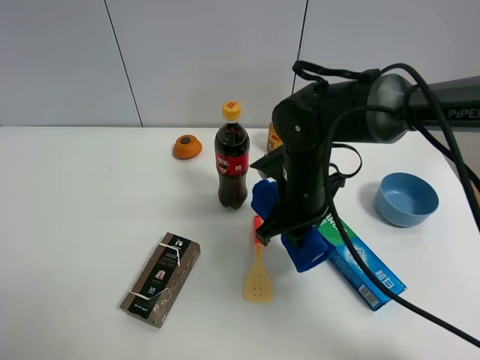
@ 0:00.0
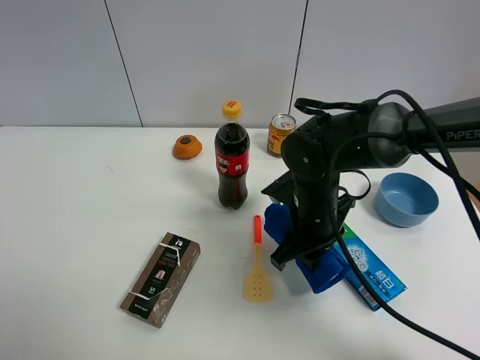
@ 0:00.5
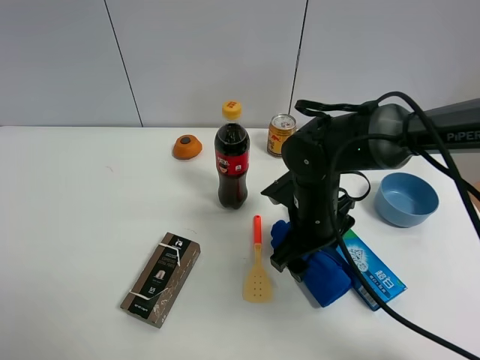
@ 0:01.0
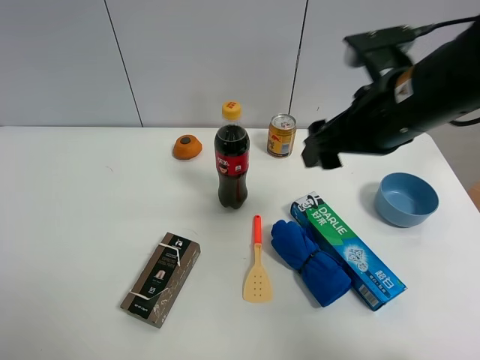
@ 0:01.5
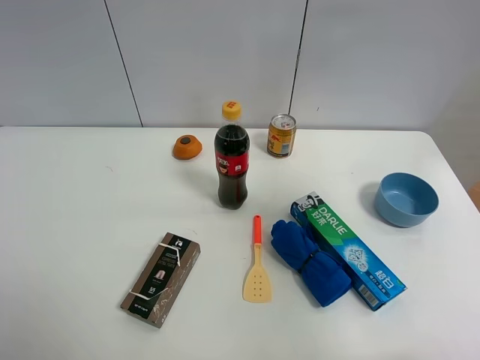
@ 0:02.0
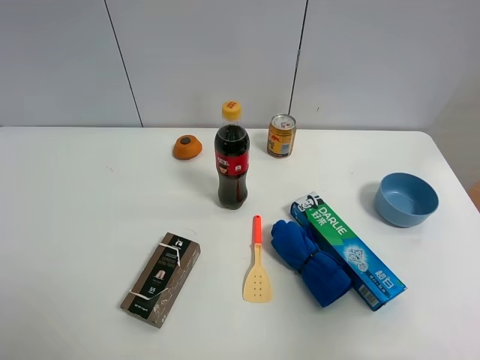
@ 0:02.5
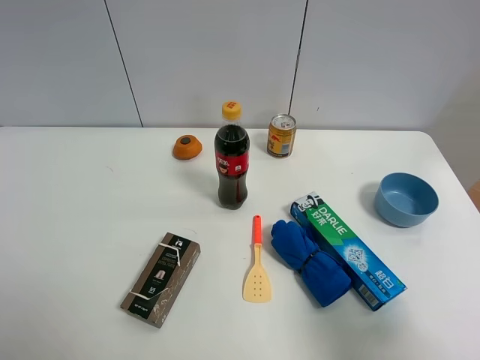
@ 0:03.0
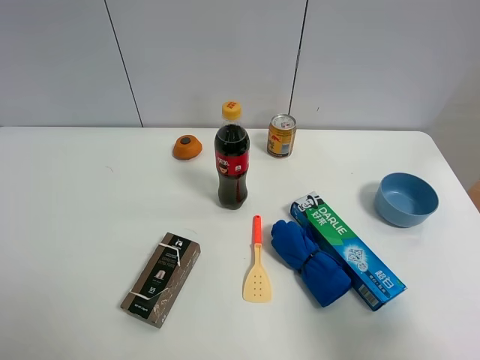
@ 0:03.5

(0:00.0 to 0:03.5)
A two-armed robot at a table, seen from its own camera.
Task of the whole recording: the gripper move the object.
0:00.0 - 0:02.0: The right gripper goes some 35 cm upward, to the right and backward, and opens.
0:02.0 - 0:03.5: The right gripper is displaced downward and backward by roughly 20 cm.

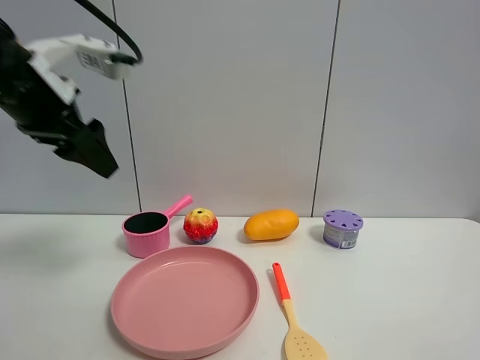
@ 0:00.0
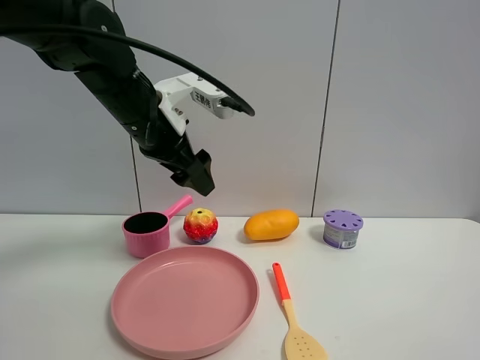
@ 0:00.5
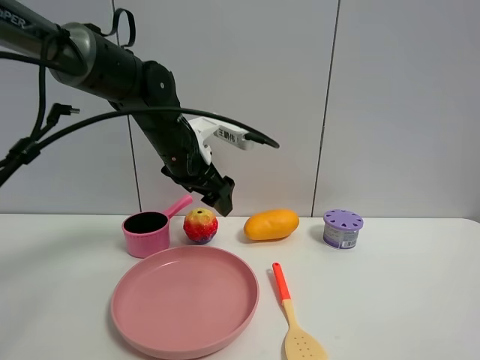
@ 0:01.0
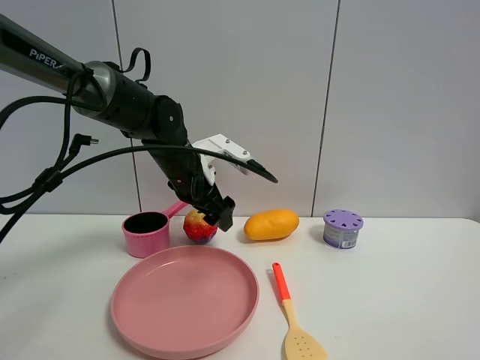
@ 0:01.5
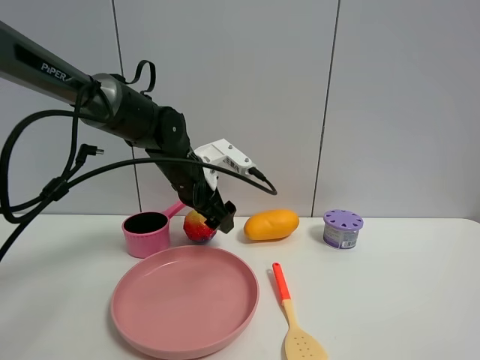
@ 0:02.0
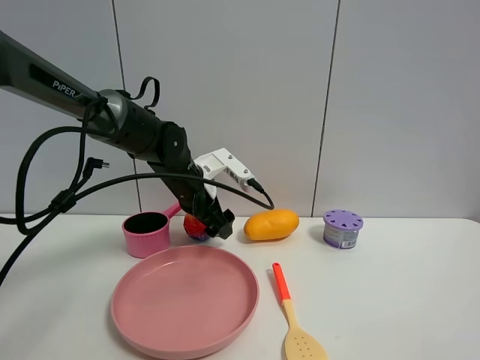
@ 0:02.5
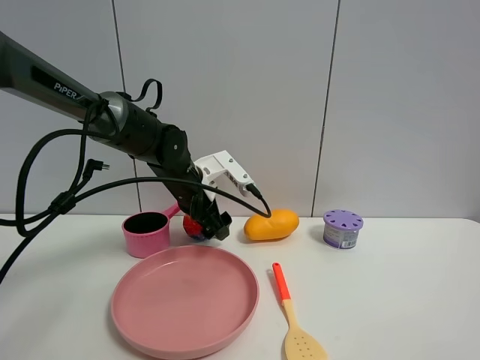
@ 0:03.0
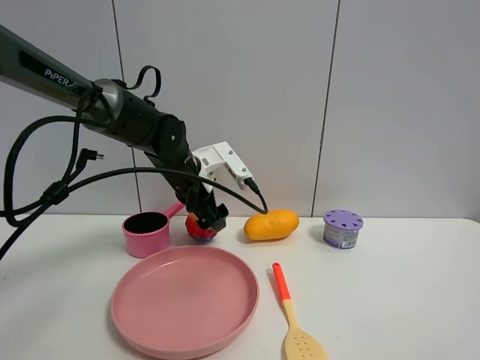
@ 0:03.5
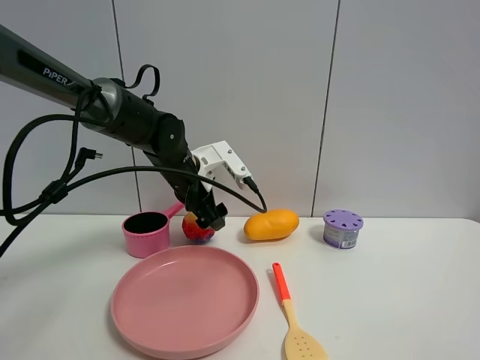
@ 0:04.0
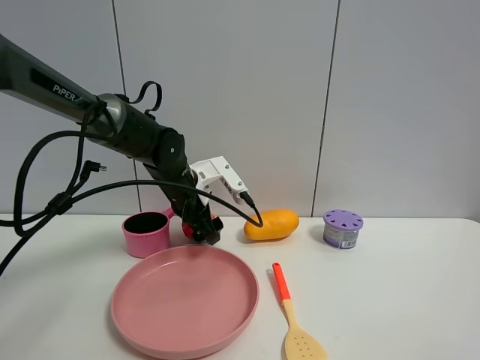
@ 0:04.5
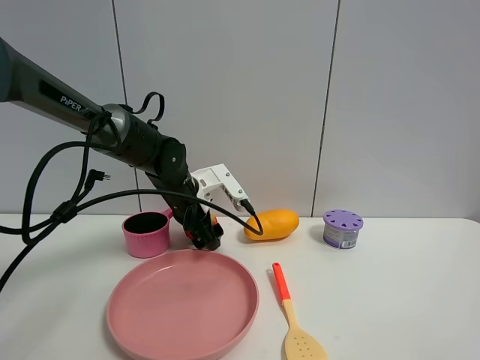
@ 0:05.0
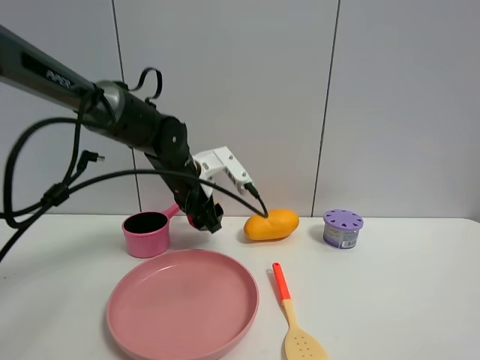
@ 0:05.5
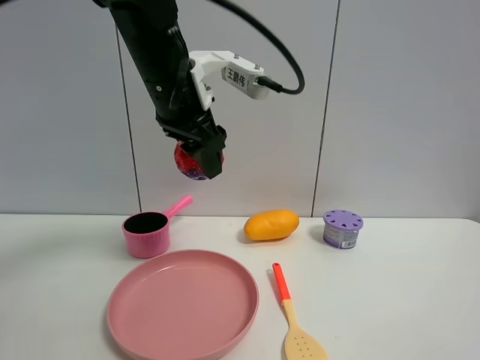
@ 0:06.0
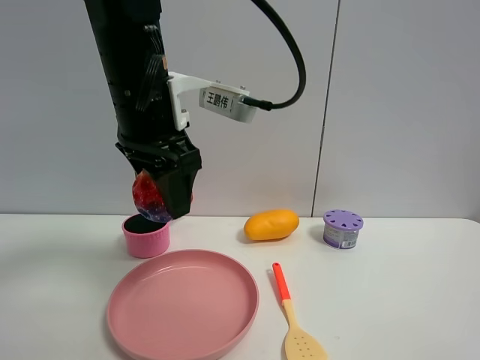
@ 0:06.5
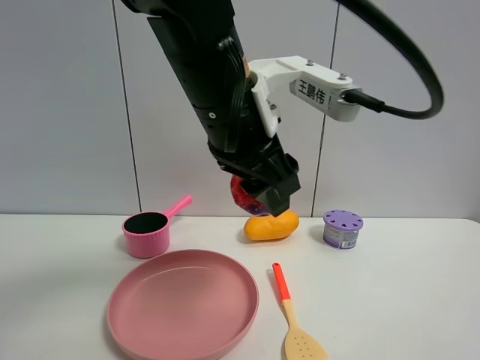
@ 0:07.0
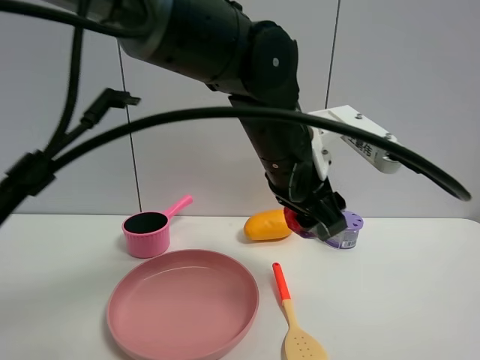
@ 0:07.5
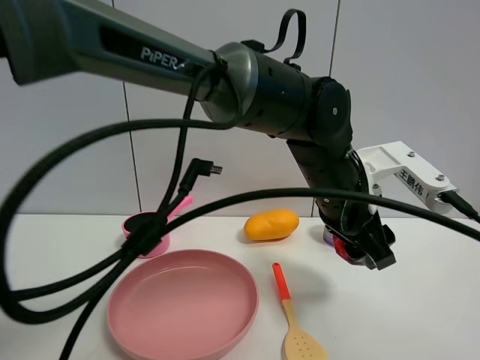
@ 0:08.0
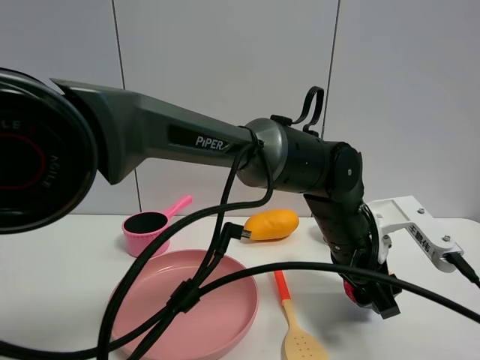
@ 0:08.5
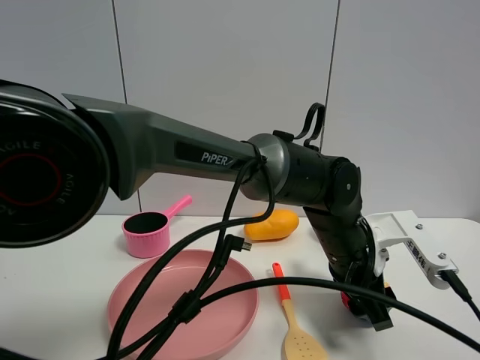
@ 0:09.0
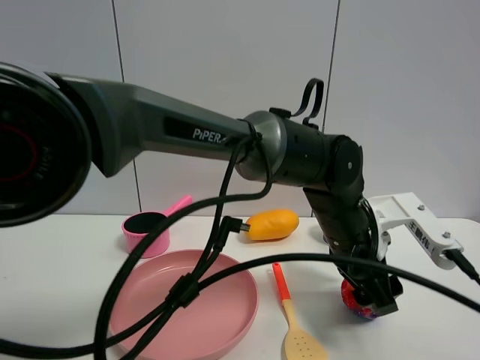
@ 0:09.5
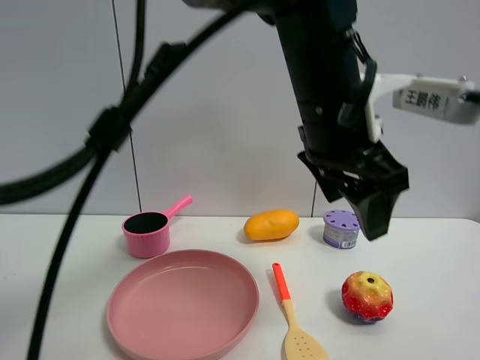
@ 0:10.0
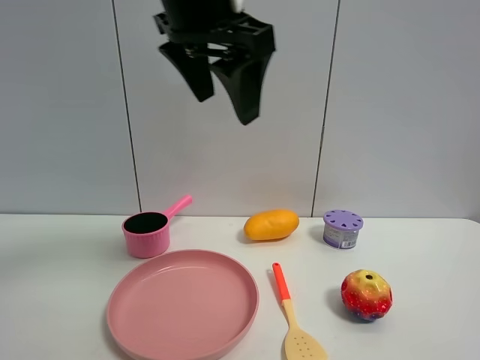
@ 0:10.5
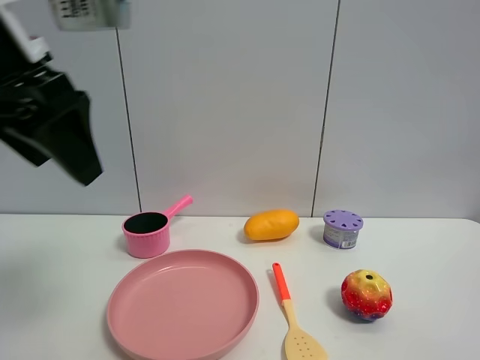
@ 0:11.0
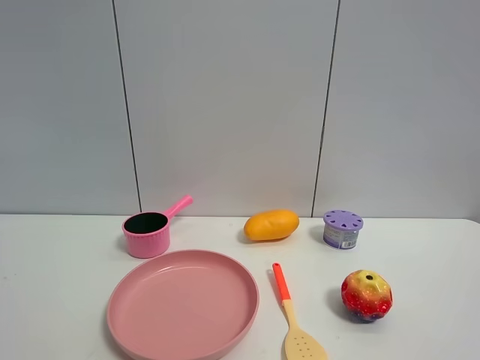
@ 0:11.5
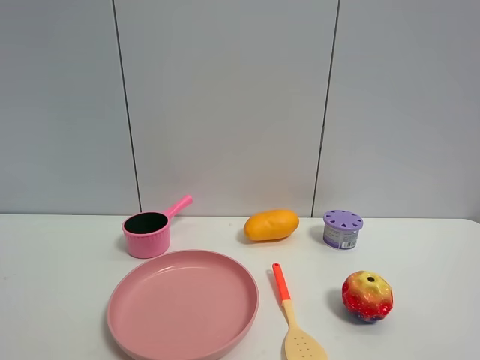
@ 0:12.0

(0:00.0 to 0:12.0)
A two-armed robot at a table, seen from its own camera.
Task of the whole recording: the gripper move the object.
Step, 0:00.0 - 0:05.0: Grasp the colorful ball with the left gripper.
Step, 0:05.5 - 0:09.5: Place the colorful ball on the table with the left gripper.
0:00.0 - 0:02.0: The left gripper shifts roughly 25 cm downward, to the right and forward.
0:02.0 - 0:04.0: The grippers stay close to where they were, moving slightly.
0:04.0 - 0:06.0: The left gripper travels upward and backward by approximately 20 cm, and closes its fingers.
0:06.0 - 0:08.0: The left gripper moves to the right and downward, about 20 cm.
0:08.0 - 0:10.0: The left gripper heads upward, covering roughly 10 cm, and opens its fingers.
0:10.0 - 0:12.0: The left gripper moves to the left and backward, about 50 cm.

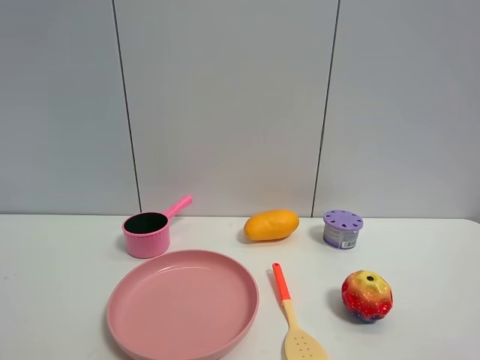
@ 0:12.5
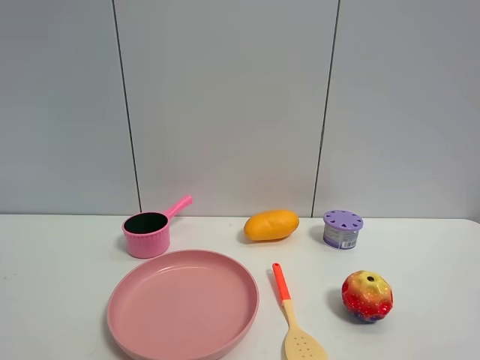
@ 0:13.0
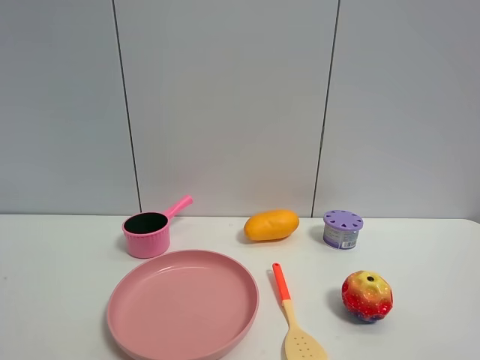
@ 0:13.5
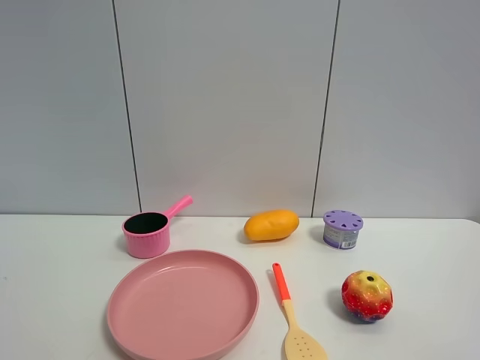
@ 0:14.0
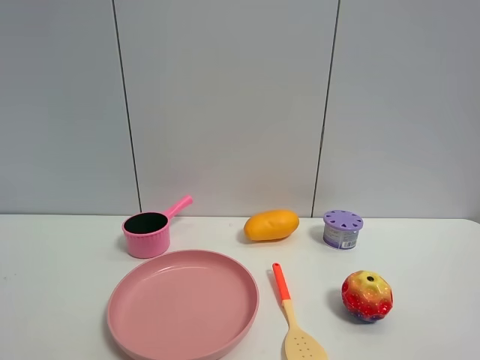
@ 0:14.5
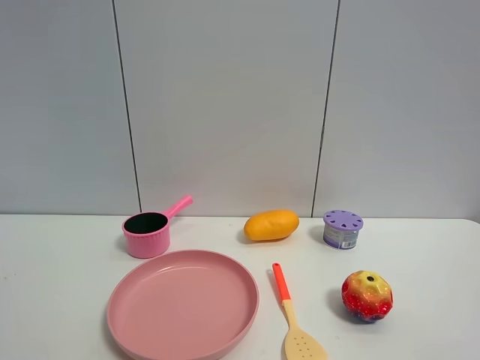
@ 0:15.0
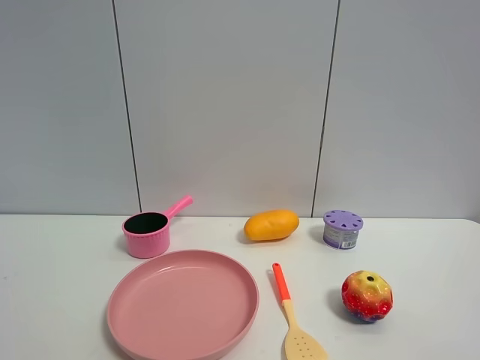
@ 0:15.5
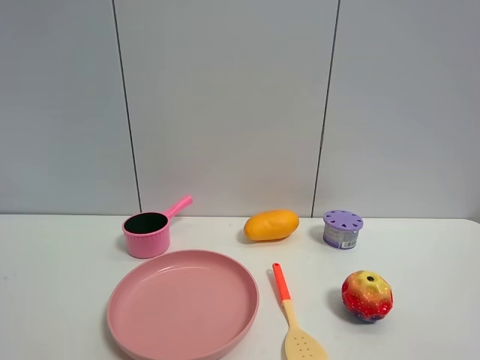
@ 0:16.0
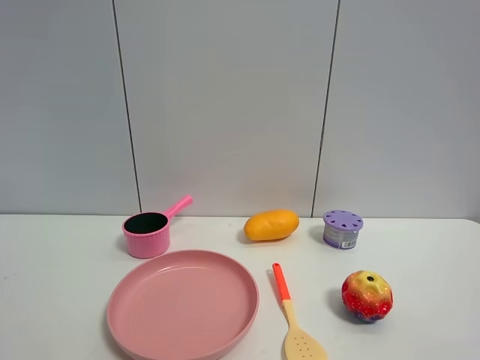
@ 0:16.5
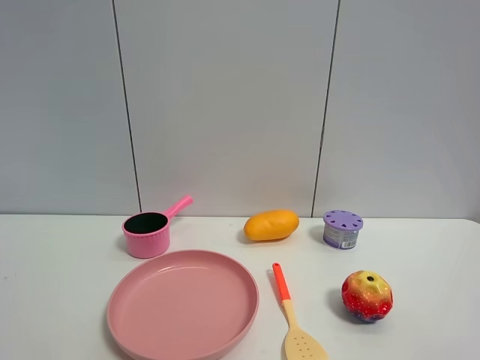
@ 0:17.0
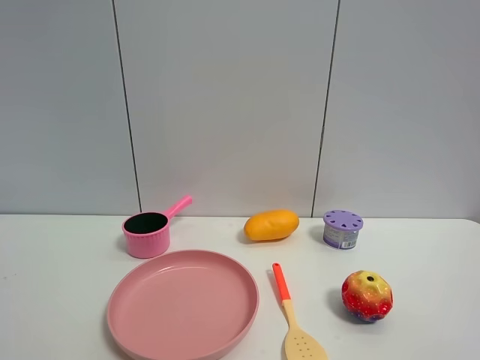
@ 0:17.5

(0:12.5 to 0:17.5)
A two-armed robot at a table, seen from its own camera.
Task of the whole recording: the gripper move the object.
0:15.0 - 0:17.5: Neither gripper changes place.

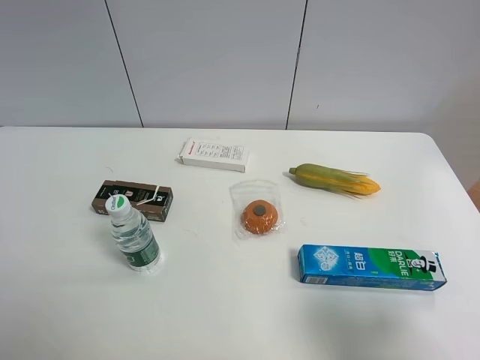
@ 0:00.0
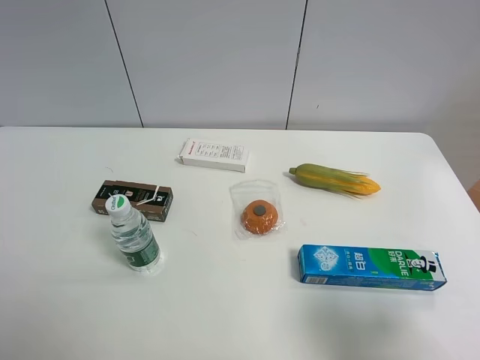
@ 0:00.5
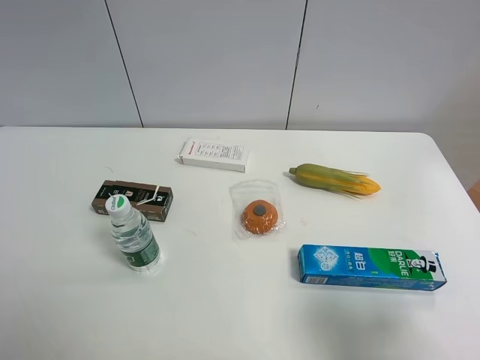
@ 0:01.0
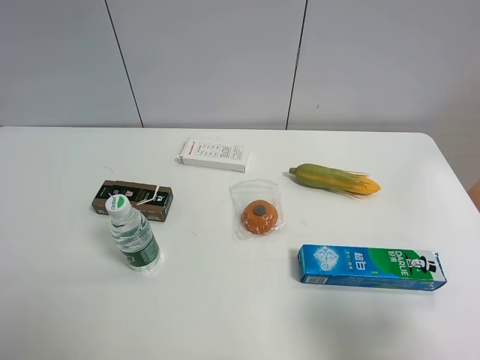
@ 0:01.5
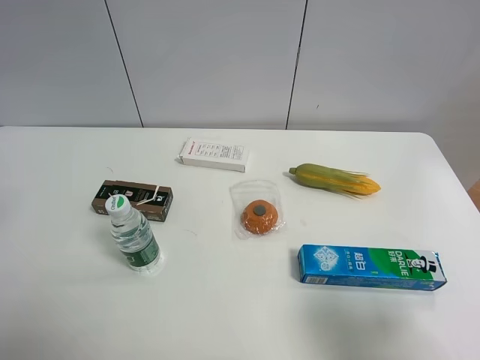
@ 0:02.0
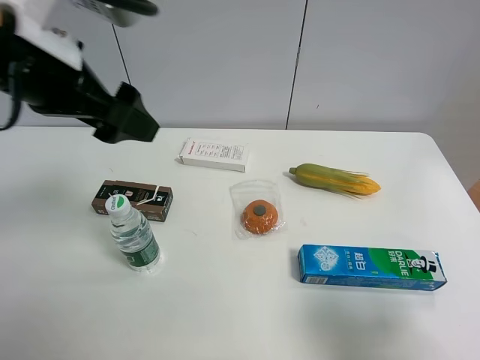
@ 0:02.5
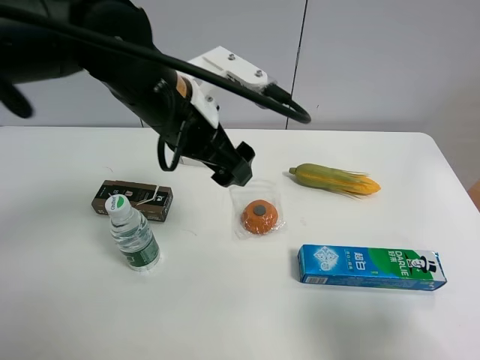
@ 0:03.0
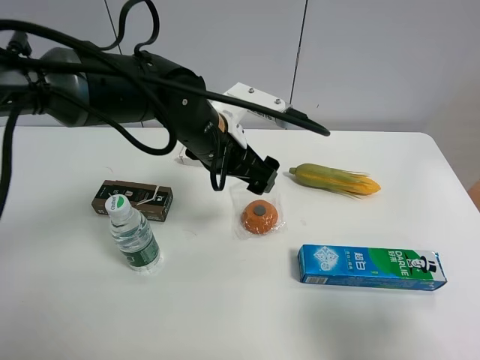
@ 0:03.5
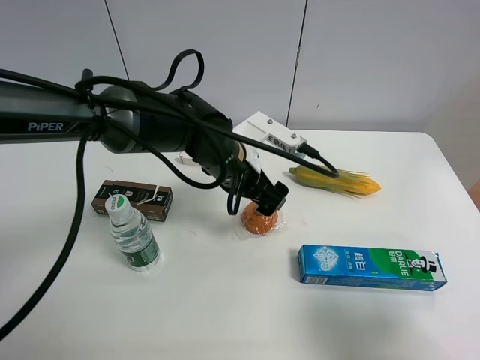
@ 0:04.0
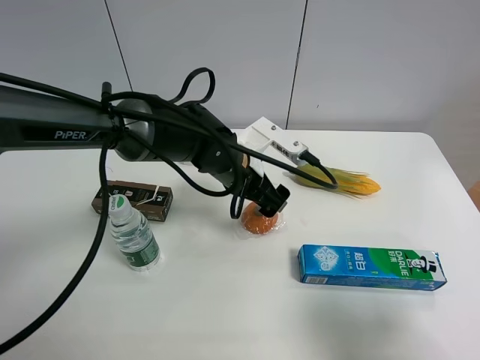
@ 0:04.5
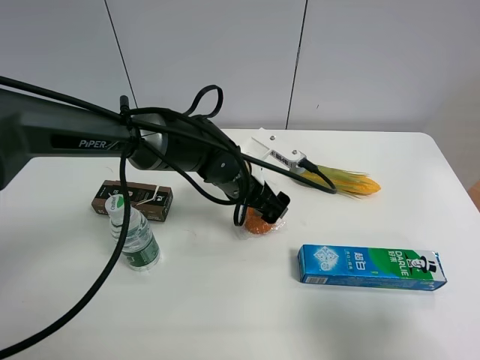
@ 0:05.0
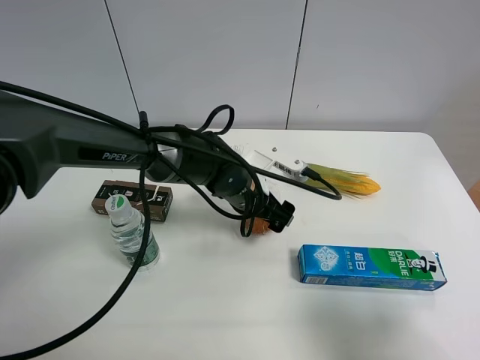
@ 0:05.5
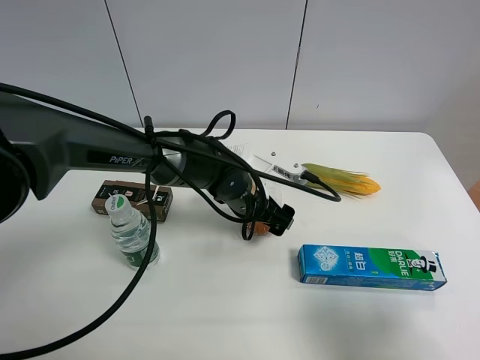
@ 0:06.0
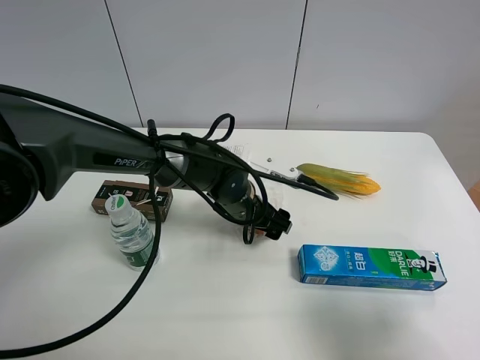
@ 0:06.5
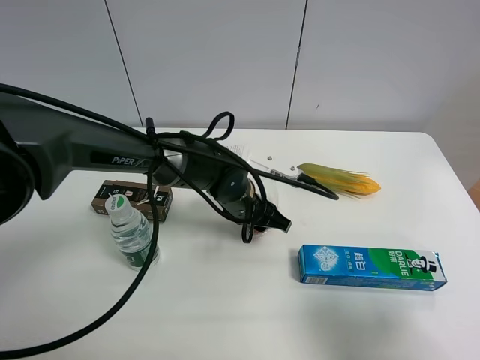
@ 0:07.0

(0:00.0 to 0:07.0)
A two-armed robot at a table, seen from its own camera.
Task of the whole recording: the gripper move the object.
Step, 0:00.0 - 0:06.5: Grasp the egg tart with the left gripper.
0:02.0 - 0:03.5: The left gripper shifts some 35 cm to the right, downward and forward.
0:03.5 - 0:05.0: The left gripper shifts roughly 10 cm downward.
0:05.0 - 0:07.0: The left gripper closes its fingers.
